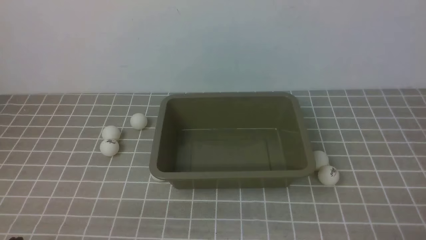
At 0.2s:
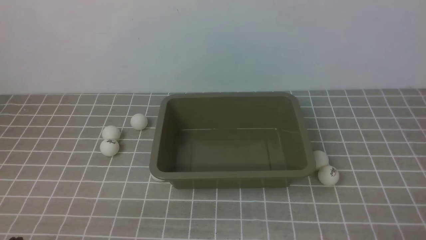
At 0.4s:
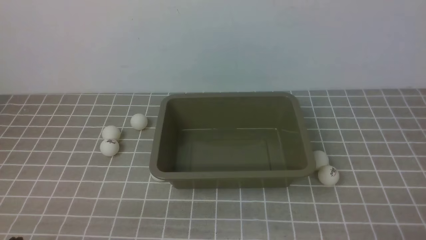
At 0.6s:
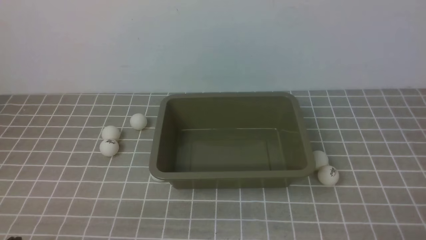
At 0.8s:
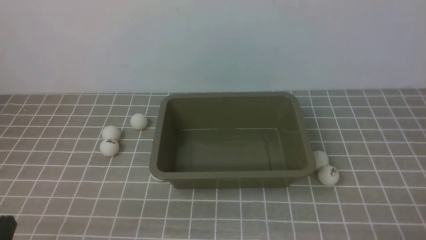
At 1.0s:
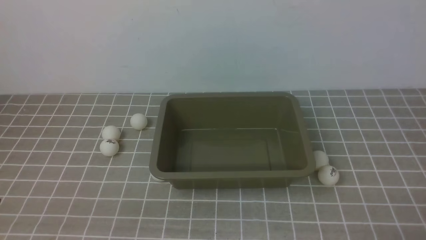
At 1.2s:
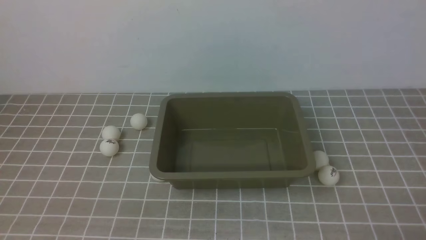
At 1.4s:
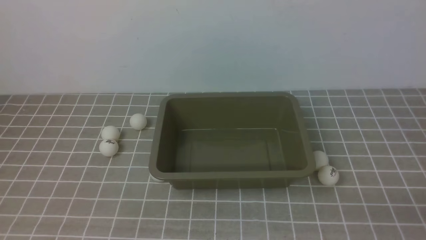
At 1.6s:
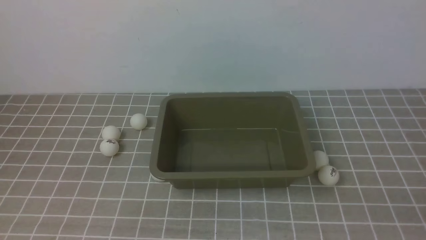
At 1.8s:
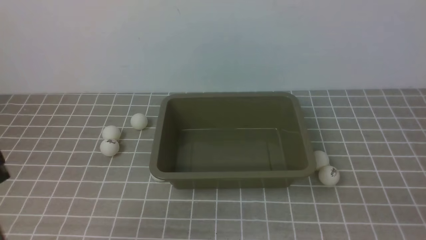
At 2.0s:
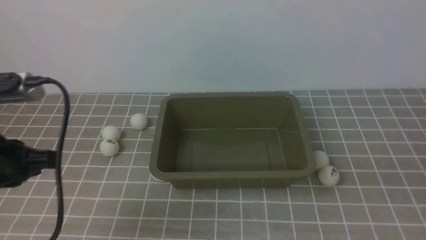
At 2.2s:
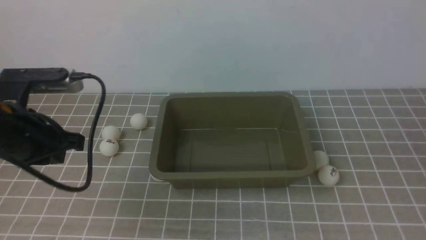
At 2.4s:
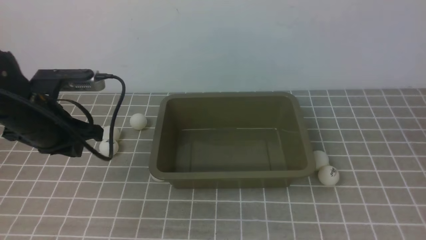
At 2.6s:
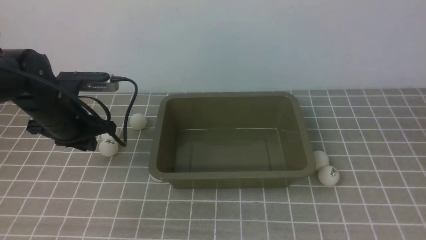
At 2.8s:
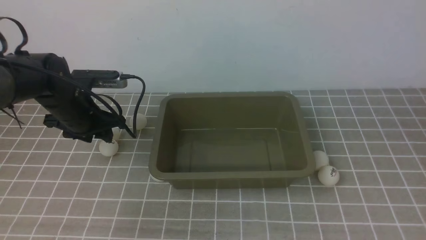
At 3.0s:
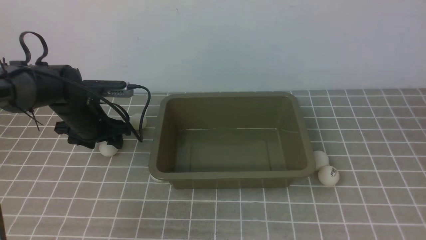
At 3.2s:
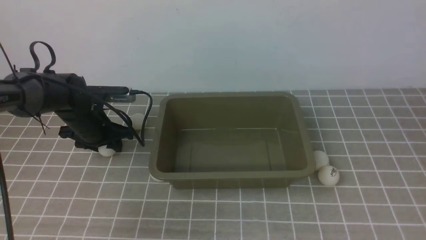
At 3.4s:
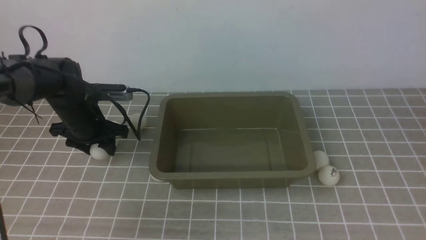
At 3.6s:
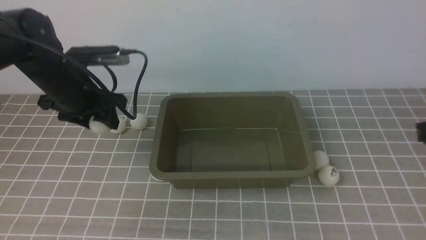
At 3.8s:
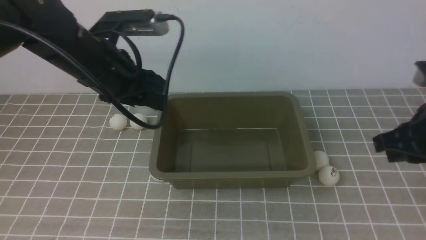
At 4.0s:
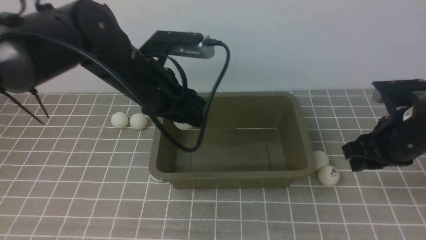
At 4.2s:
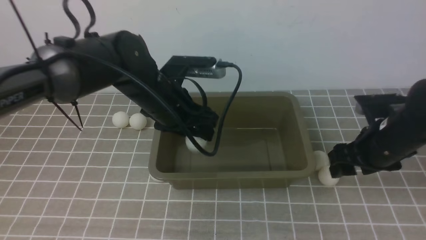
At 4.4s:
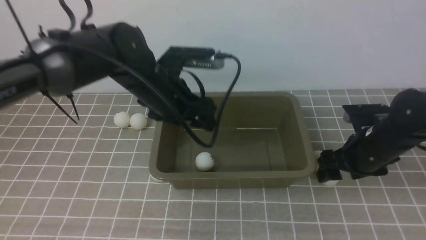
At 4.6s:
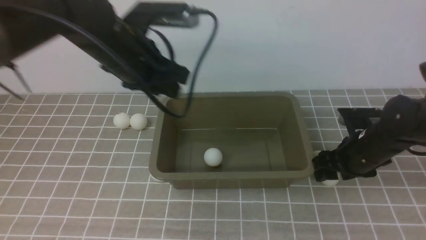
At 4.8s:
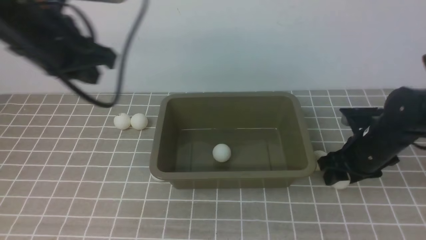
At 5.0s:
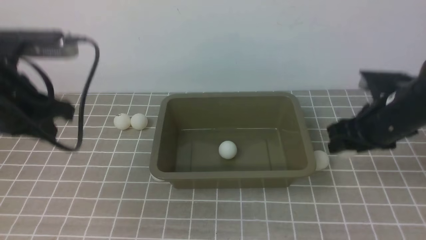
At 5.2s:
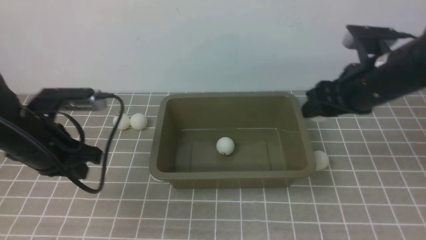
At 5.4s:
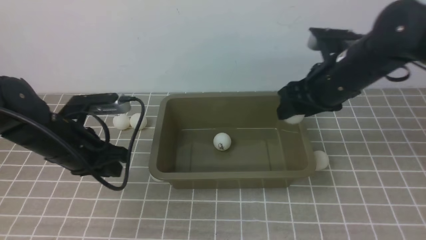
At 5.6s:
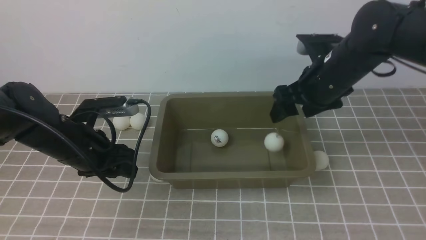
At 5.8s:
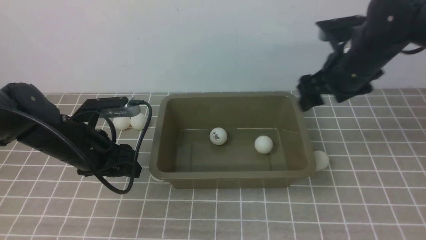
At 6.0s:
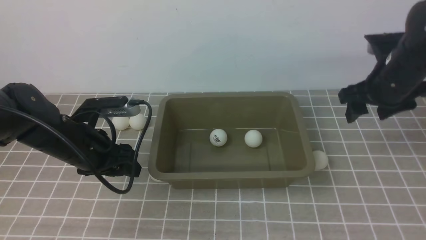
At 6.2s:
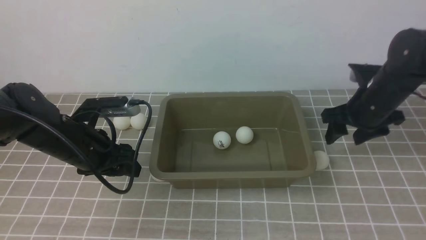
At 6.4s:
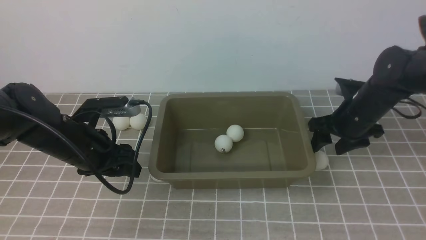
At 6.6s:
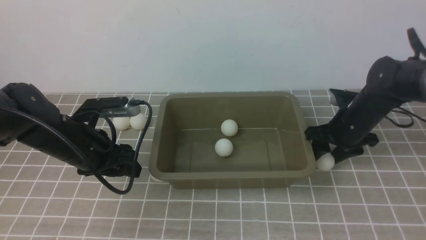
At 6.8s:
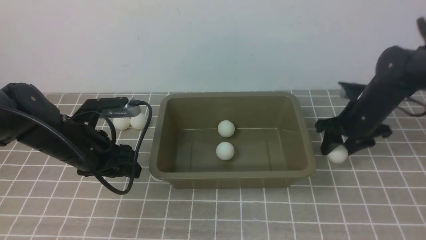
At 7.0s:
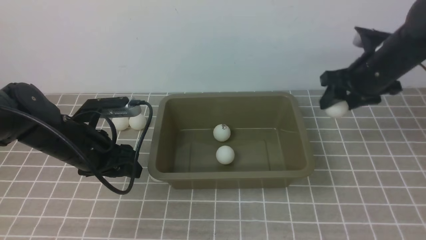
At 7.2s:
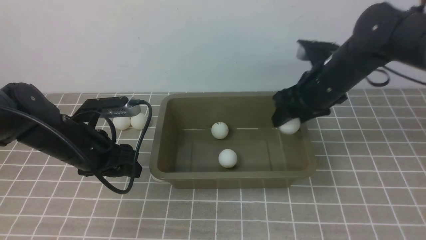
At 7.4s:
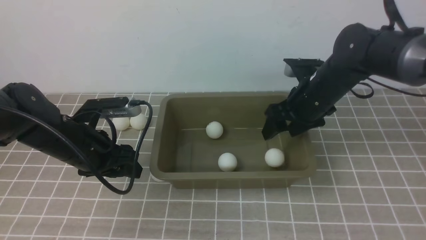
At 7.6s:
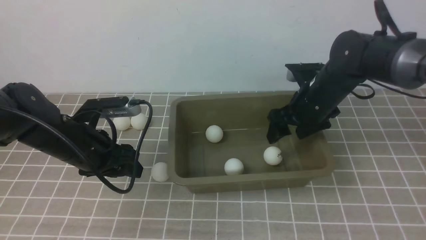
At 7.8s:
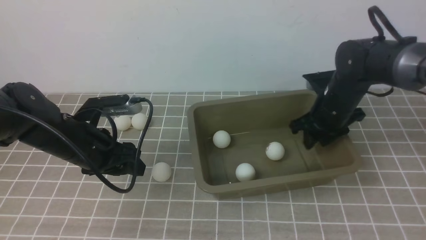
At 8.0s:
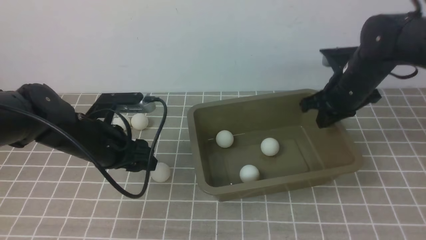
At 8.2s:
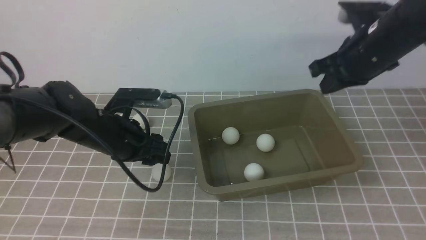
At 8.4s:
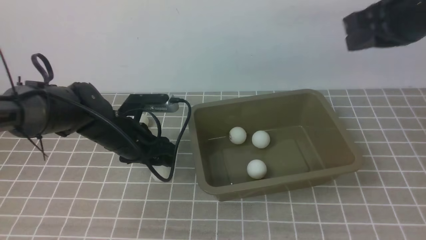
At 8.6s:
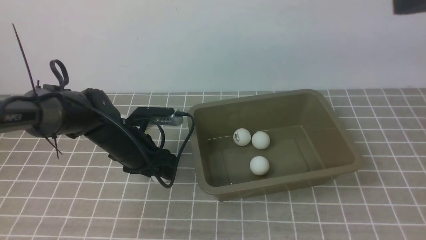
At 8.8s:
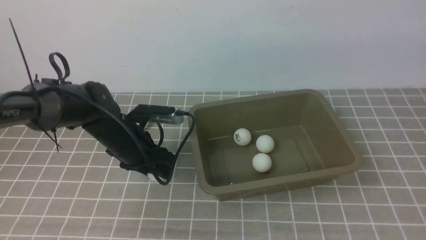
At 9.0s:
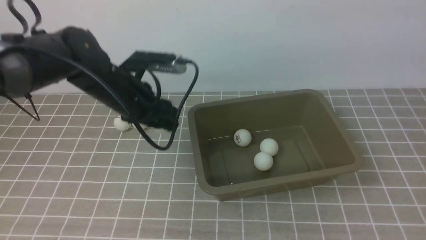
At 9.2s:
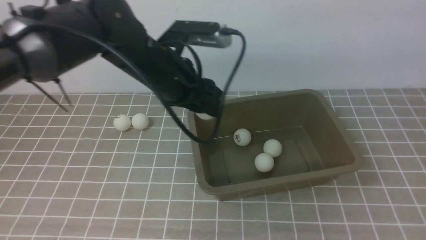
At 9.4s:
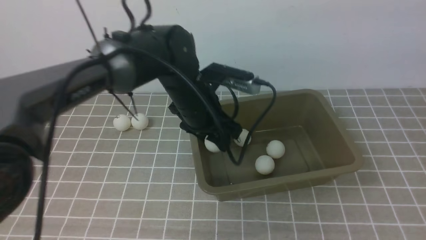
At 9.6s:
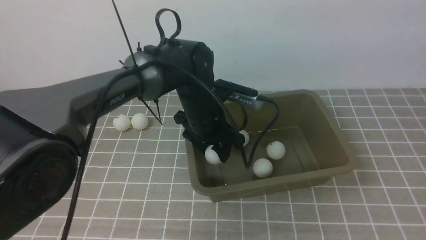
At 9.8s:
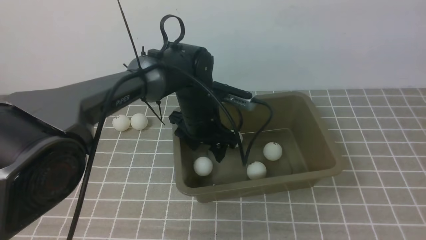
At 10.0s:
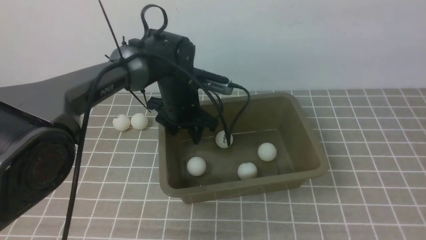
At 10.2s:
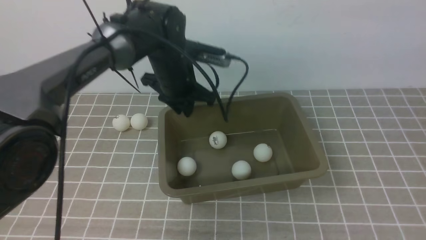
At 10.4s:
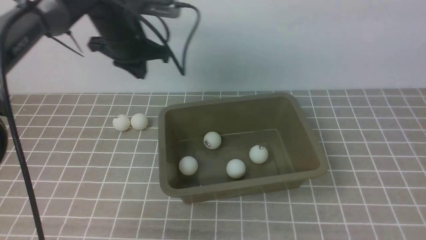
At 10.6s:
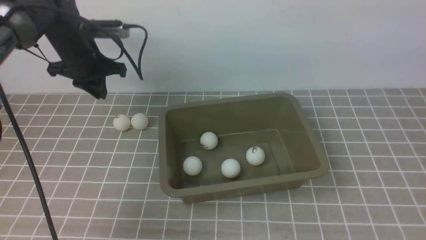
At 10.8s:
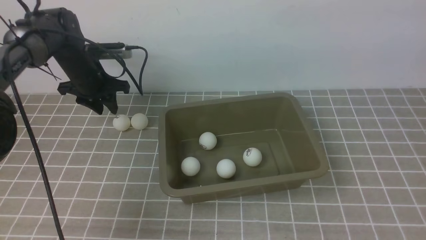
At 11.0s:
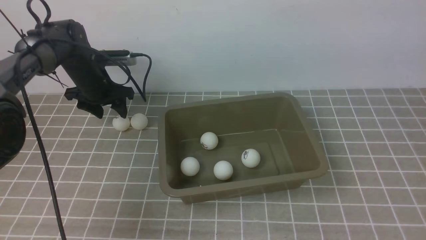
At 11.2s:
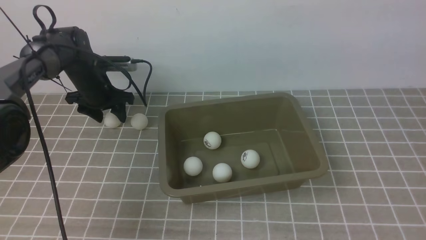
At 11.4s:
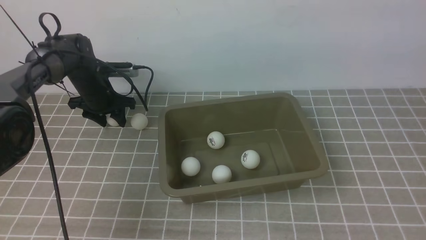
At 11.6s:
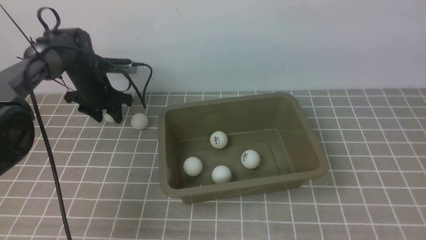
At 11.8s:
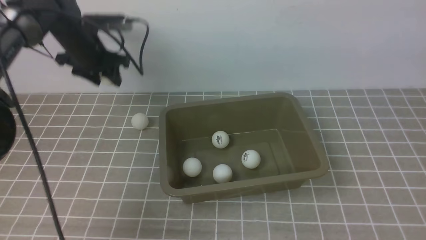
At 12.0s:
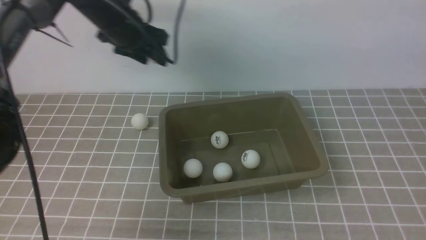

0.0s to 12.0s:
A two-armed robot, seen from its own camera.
Step, 0.0s to 3.4s: use the left arm to clamp the table tennis ball closest to it.
Step, 3.6s to 4.2s: use the left arm to put the table tennis ball into the box.
Step, 4.4s to 5.0s: use the right arm to clamp the table tennis ball closest to it.
Step, 5.2s to 5.8s: use the right arm to put the table tennis ball into the box.
Step, 6.0s to 6.8s: use the right arm to clamp the table tennis ball closest to it.
Step, 7.0s to 7.6s: use the right arm to put the table tennis ball into the box.
Step, 7.8s to 9.0s: use the left arm to clamp the table tennis ball closest to it.
Step, 9.2s to 10.0s: use the left arm to put the table tennis ball into the box.
Step, 10.2s to 11.6s: use the left arm to clamp the table tennis ball closest to it.
1.6s to 3.0s: The left gripper is displaced forward and downward by about 35 cm, and opens up. The right gripper heads upward and forward, covering some 20 cm.
3.0s to 4.4s: The left gripper moves to the right and upward, approximately 20 cm. Meanwhile the right gripper heads downward and forward, covering some 25 cm, and opens up.
4.4s to 6.0s: The left gripper travels to the left, downward and backward by some 15 cm, and closes, then reopens. The right gripper goes about 10 cm upward and forward.
6.0s to 7.6s: The right gripper heads to the left, covering some 5 cm.
7.6s to 9.0s: The left gripper travels to the right and forward by roughly 10 cm. Meanwhile the right gripper is displaced upward and backward by about 35 cm, and closes its fingers.
9.0s to 10.4s: The left gripper goes roughly 10 cm forward, moves roughly 10 cm to the right and comes back, and closes up.
10.4s to 12.0s: The left gripper travels downward and back again, some 10 cm each way, and opens its fingers.

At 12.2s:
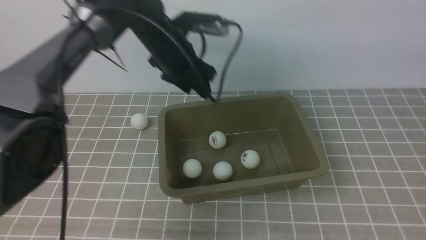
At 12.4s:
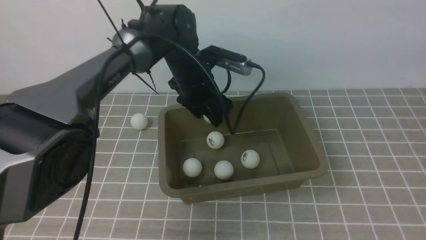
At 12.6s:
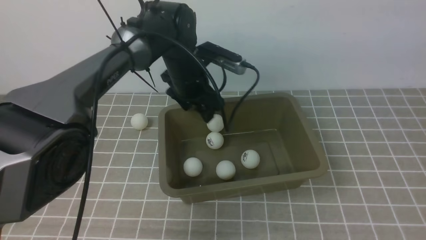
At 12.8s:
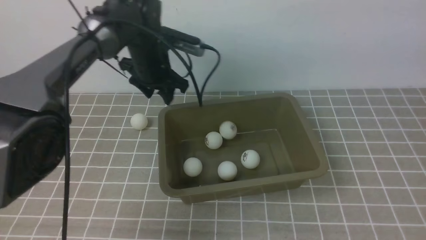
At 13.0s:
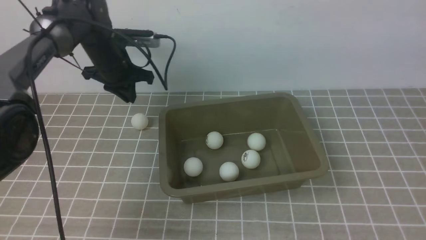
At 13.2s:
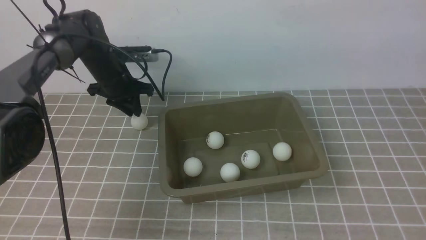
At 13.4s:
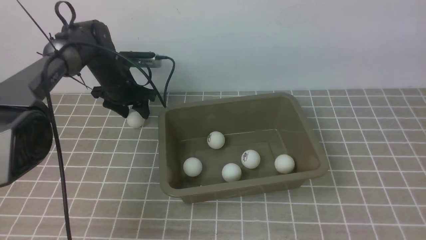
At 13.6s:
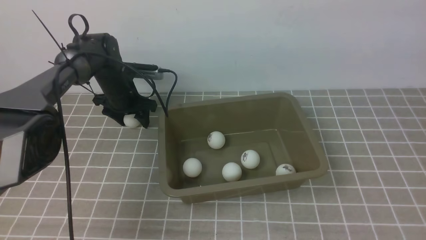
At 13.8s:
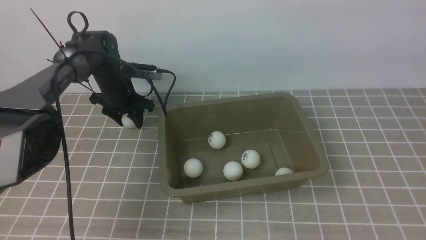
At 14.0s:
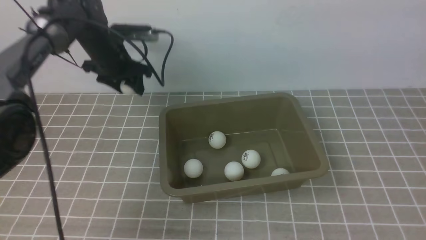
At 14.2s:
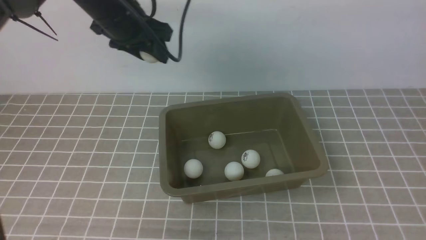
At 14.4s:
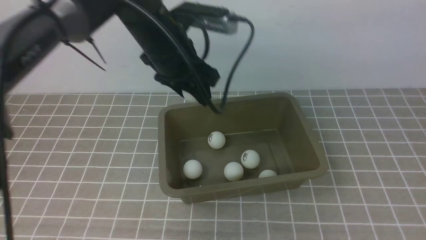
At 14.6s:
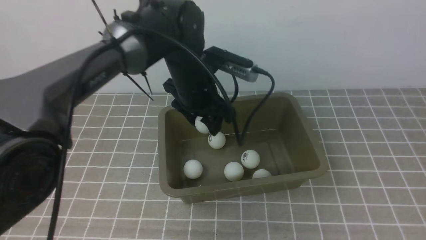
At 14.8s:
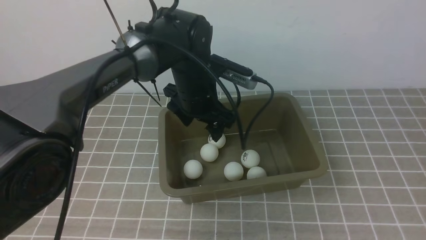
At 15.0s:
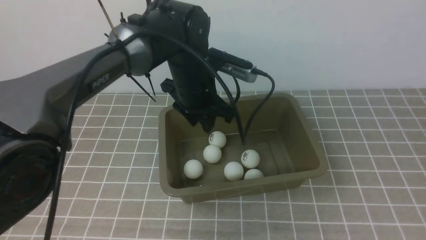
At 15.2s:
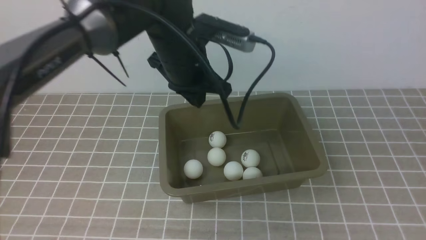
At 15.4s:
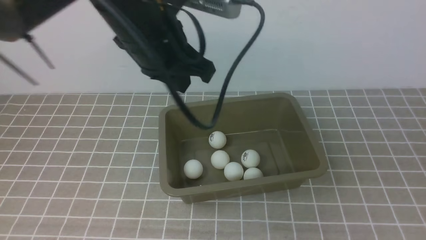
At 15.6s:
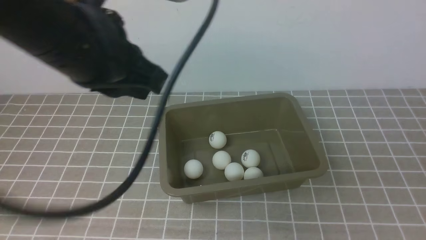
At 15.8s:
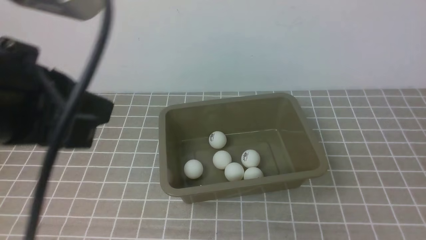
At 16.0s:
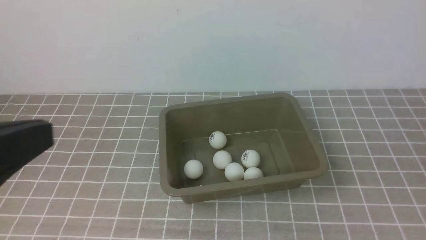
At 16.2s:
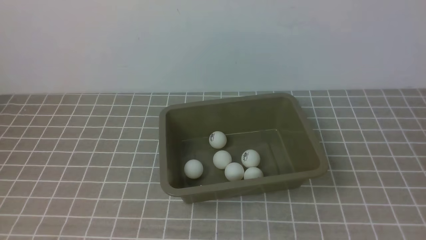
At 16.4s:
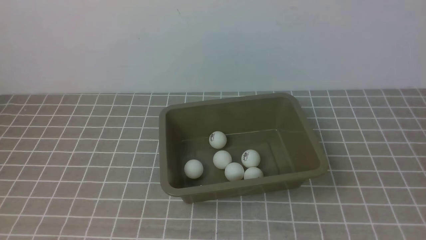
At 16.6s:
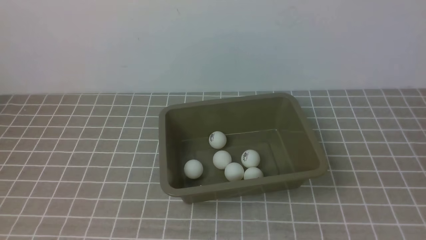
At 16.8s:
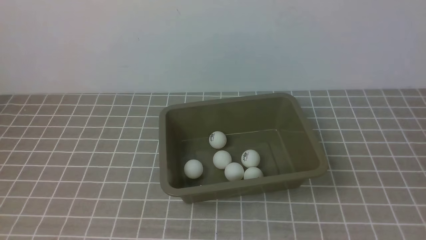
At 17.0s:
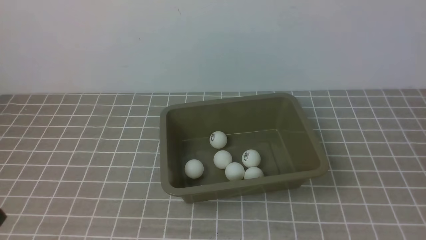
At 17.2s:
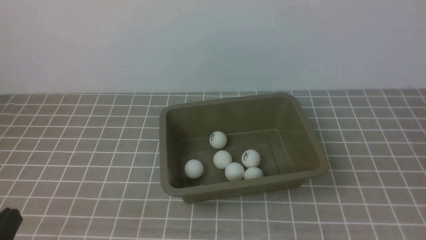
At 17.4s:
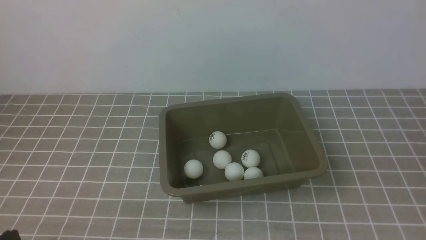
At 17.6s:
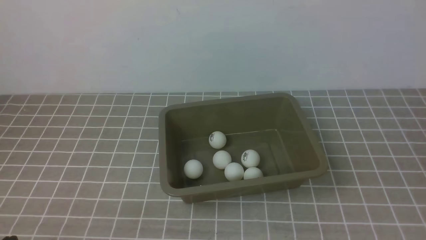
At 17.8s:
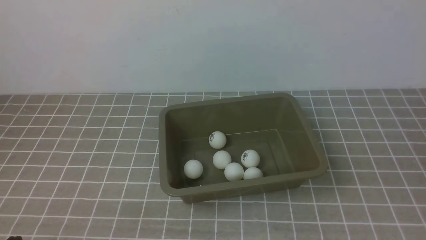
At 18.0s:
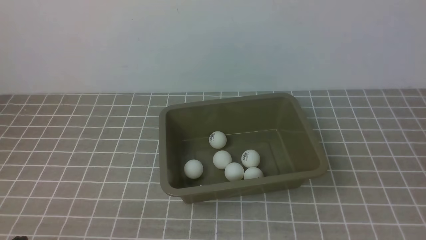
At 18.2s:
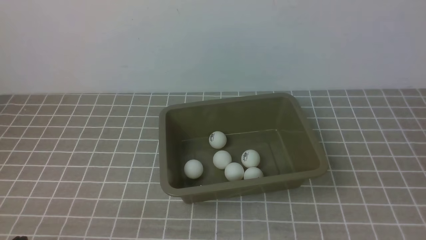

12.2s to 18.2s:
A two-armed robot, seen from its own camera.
Step, 12.2s to 12.8s: use the left arm to put the table tennis ball into the box.
Step, 13.0s to 13.8s: use the left arm to clamp the table tennis ball closest to it.
Step, 14.0s to 14.8s: use the left arm to put the table tennis ball into the box.
12.2s to 13.8s: The left gripper travels to the left, downward and forward by some 15 cm, and closes and opens again.
13.8s to 15.2s: The right gripper moves backward, some 25 cm. Meanwhile the left gripper is displaced backward, to the right and upward by about 25 cm, and closes.
15.2s to 16.6s: The right gripper travels downward by approximately 5 cm; the left gripper travels backward and to the left by some 40 cm.
